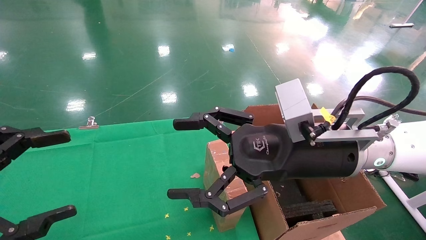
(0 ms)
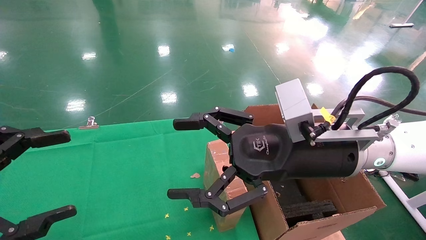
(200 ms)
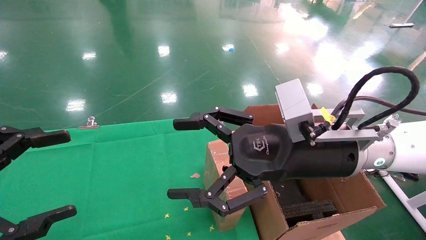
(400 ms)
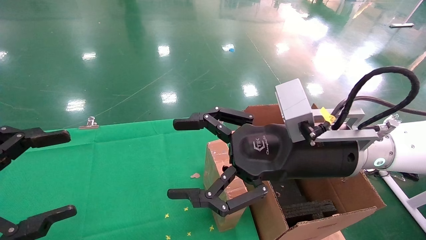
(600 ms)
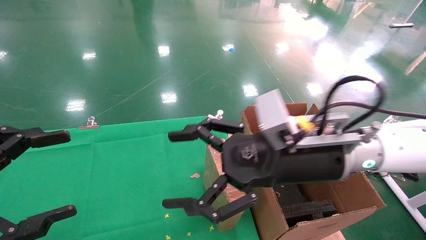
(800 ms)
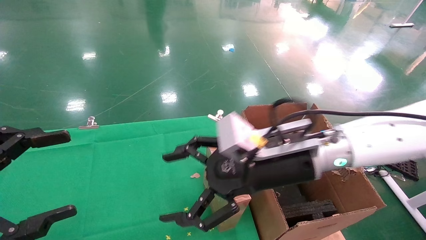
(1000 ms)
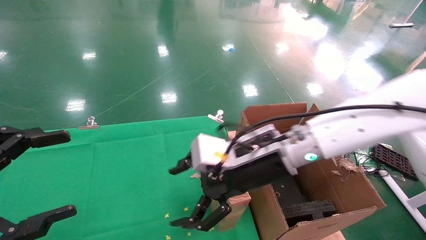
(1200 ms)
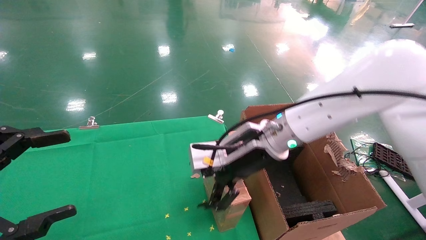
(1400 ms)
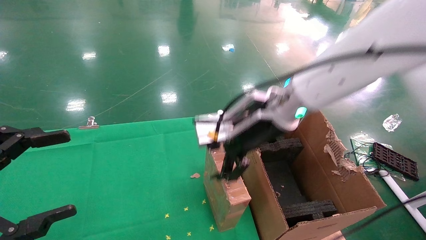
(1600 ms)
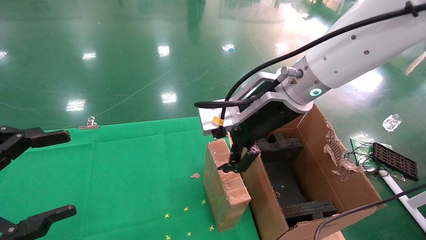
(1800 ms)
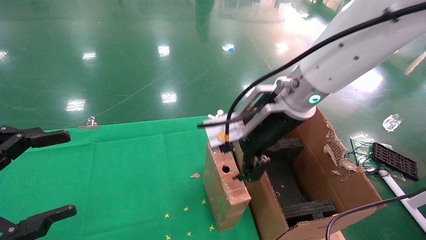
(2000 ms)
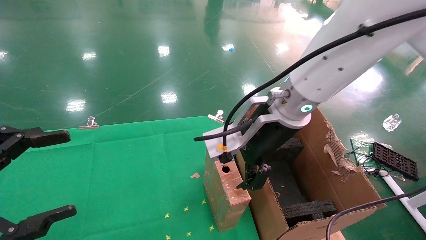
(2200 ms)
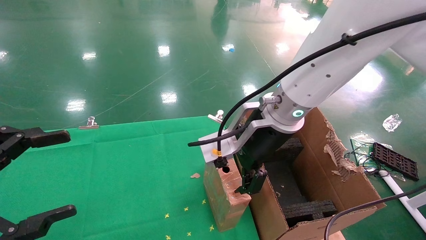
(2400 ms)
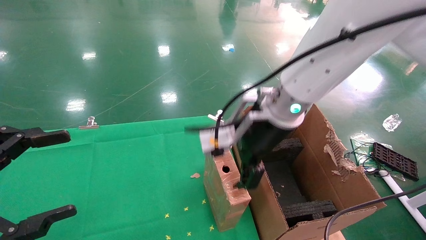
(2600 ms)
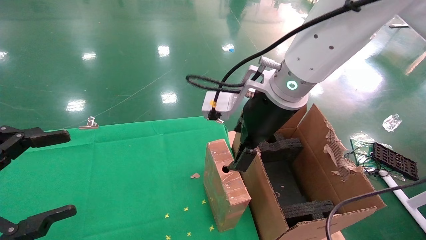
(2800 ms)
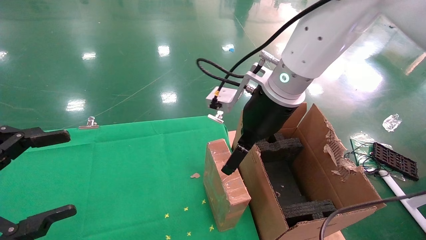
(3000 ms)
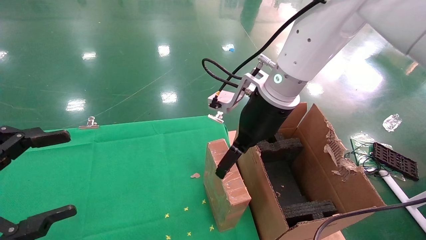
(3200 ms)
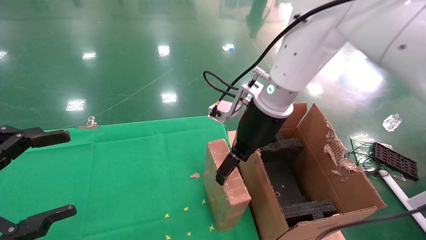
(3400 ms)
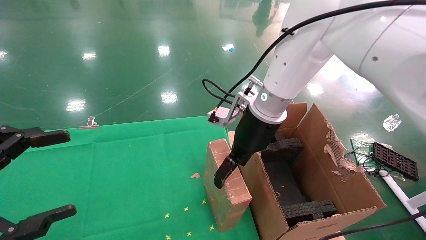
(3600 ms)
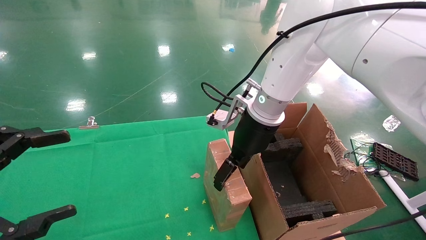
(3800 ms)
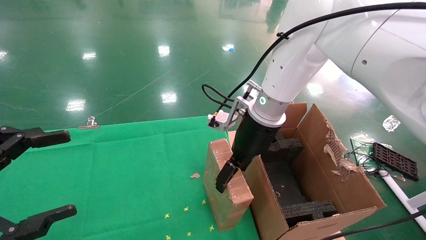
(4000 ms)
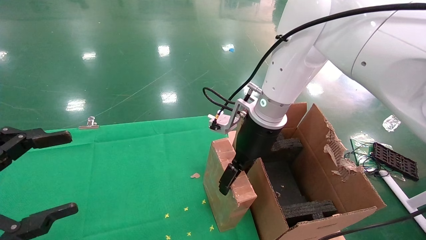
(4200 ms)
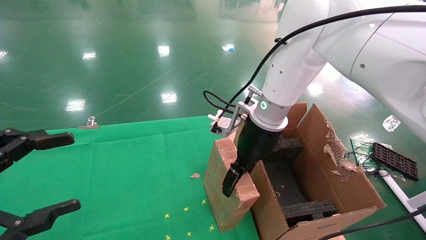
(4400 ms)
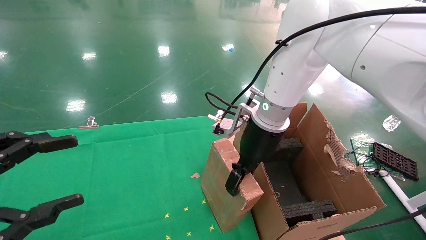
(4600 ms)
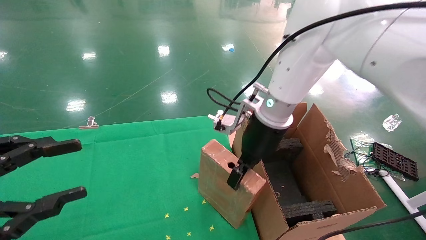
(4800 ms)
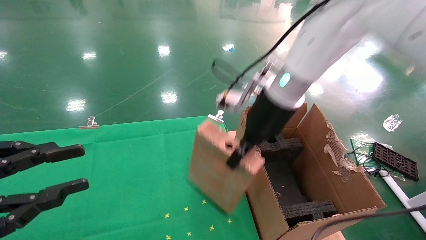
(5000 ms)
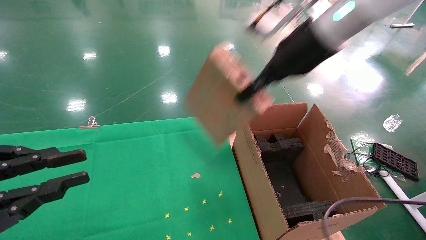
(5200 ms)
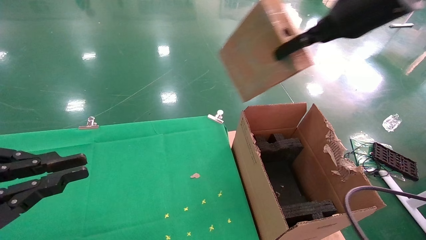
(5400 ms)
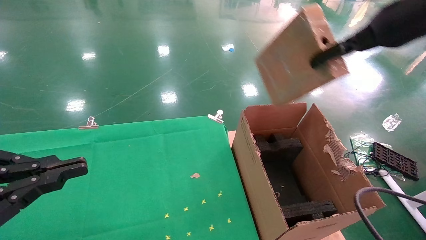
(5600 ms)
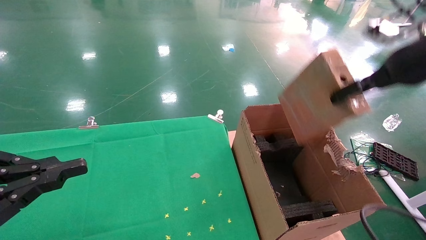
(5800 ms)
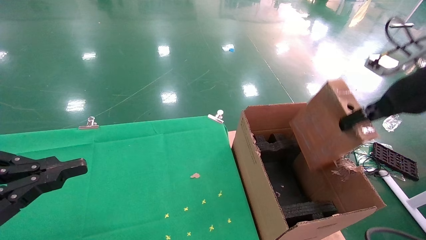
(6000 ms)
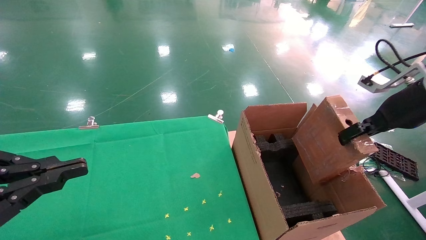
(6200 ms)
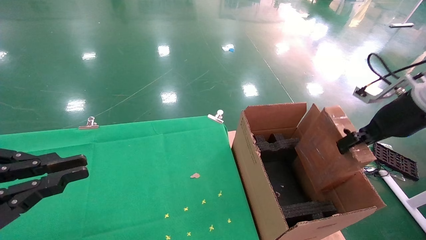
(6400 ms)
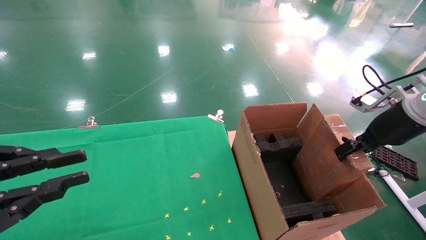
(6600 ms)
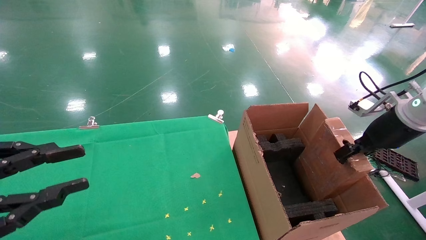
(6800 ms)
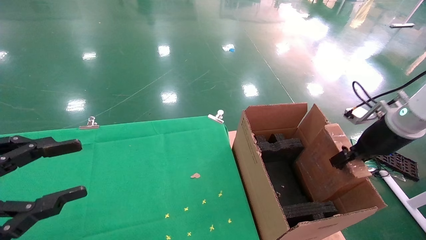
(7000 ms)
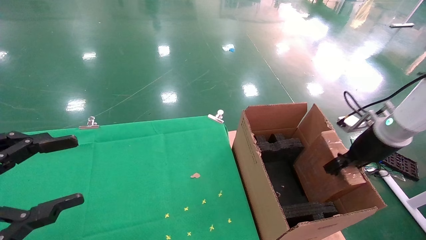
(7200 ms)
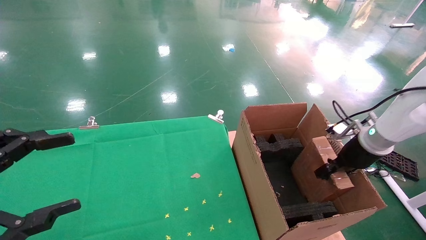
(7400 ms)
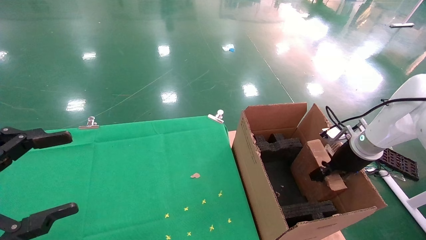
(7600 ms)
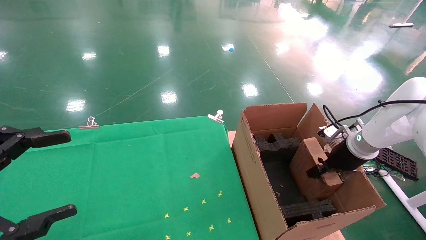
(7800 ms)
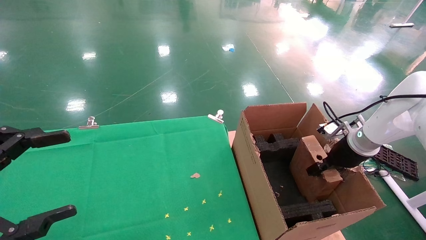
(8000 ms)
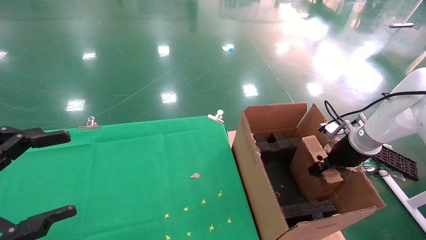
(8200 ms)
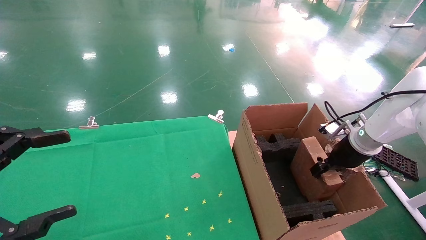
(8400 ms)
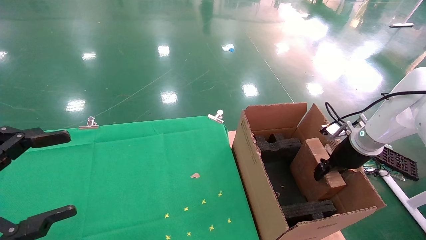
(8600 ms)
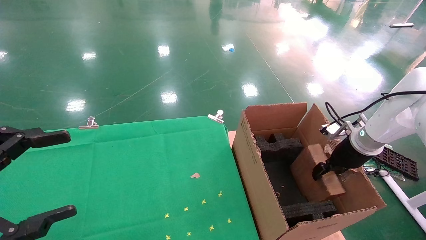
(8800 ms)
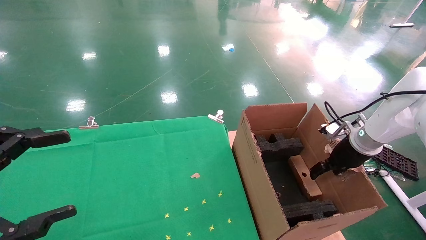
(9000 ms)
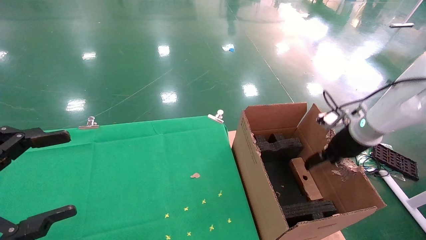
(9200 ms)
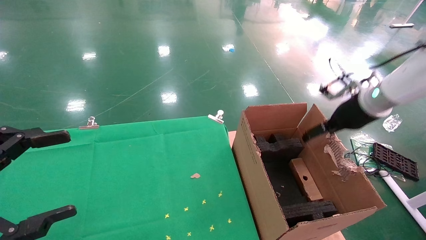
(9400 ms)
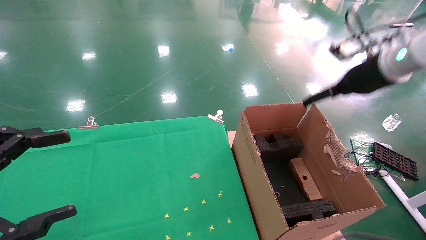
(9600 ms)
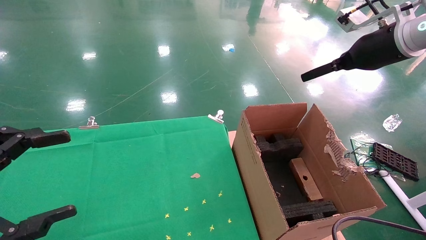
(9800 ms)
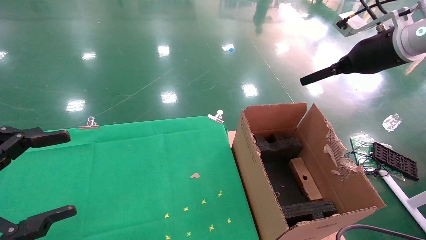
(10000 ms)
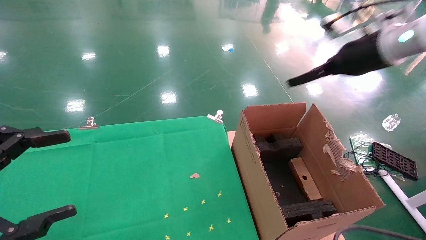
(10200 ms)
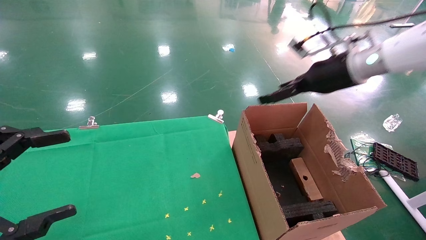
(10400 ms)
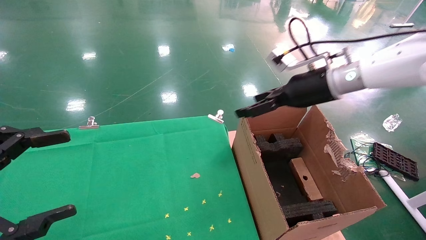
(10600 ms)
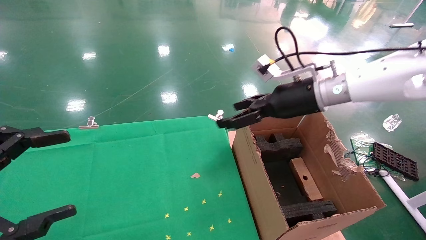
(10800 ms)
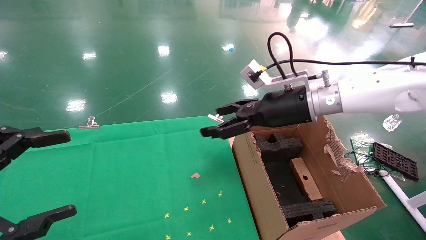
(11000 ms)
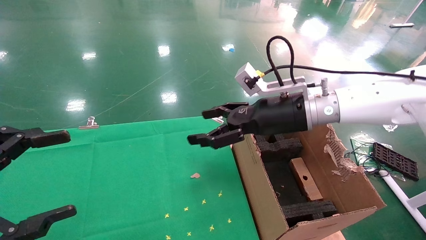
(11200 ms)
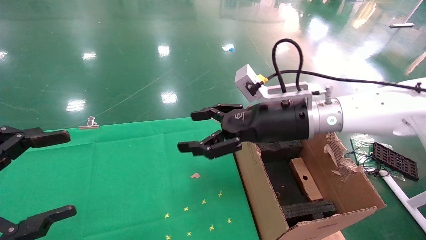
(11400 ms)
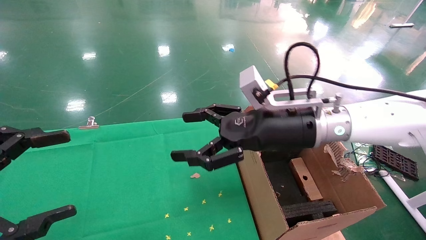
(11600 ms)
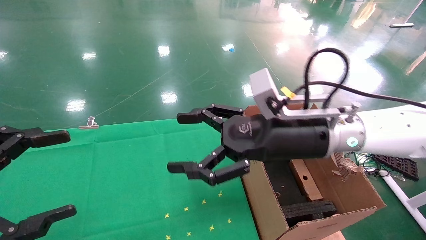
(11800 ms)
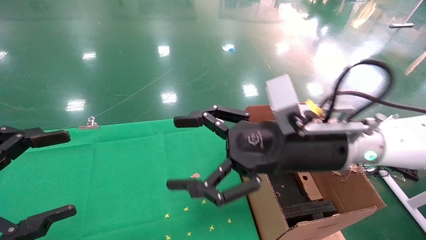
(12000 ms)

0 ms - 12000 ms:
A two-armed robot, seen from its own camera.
Task of the whole recording: using a robotic arm to pick up a cardboard box and palace it the carton.
Step, 1000 ms - 4800 ms: Pick up the mouse and the power cord paper box.
Step, 5000 ms - 9200 ms: Place the mouse and the power cord paper box into the container.
0 ms - 1600 ms: The right gripper shifts some 10 cm forward and to the left.
3000 ms - 4400 ms: The right gripper is displaced downward by about 5 cm.
4400 ms - 6000 ms: The right gripper shifts some 25 cm to the right, and closes. The left gripper closes its fingers.
6000 ms - 7600 ms: The left gripper opens its fingers. Meanwhile the right gripper shifts about 20 cm downward and forward.
7600 ms - 9000 ms: The right gripper opens up.
9000 ms - 10400 ms: The right gripper moves upward and to the left, roughly 20 cm, and opens up.
10400 ms - 12000 ms: The right gripper heads to the left, backward and downward, covering approximately 20 cm.

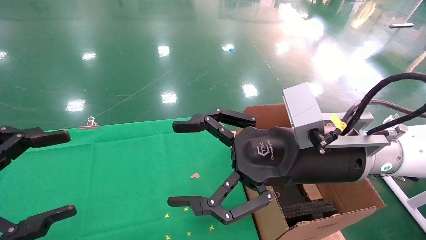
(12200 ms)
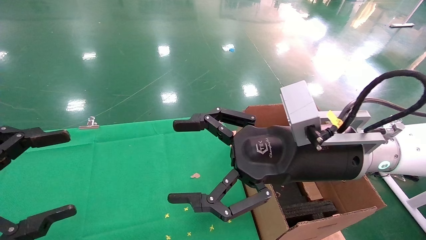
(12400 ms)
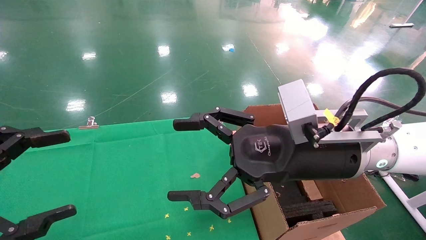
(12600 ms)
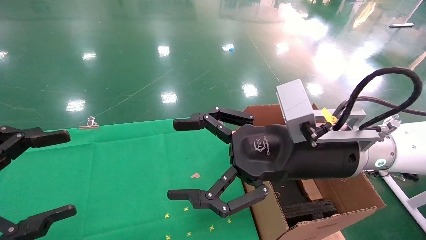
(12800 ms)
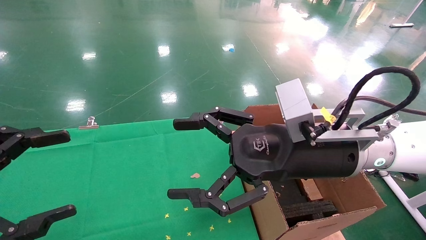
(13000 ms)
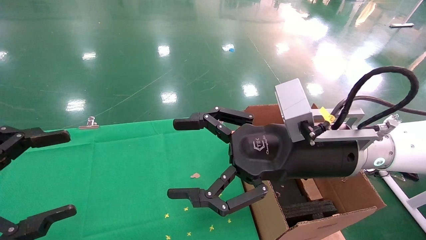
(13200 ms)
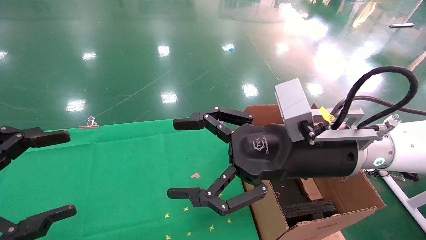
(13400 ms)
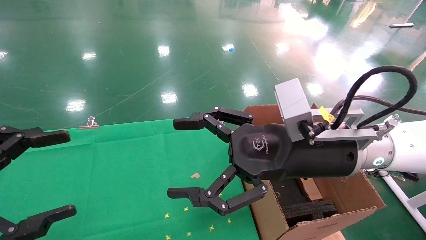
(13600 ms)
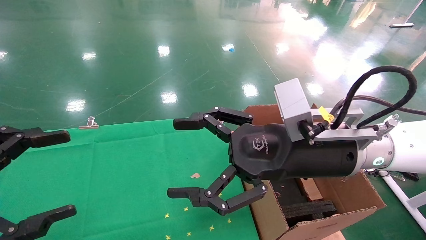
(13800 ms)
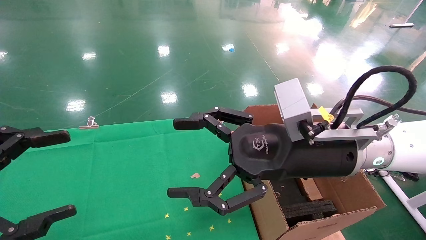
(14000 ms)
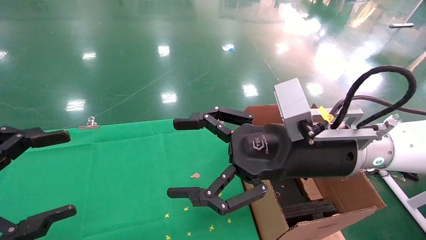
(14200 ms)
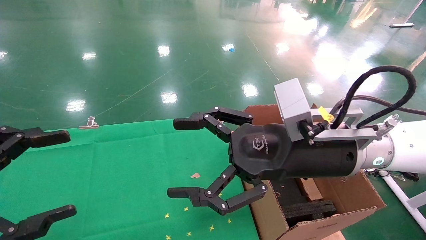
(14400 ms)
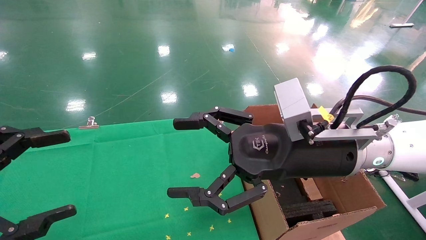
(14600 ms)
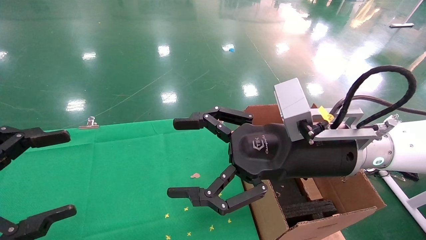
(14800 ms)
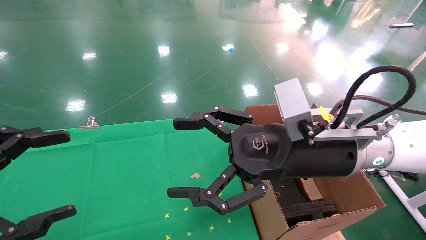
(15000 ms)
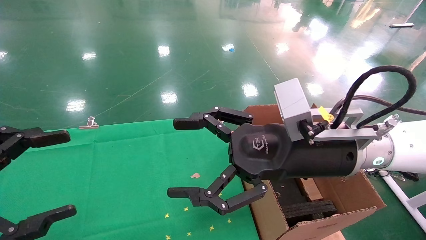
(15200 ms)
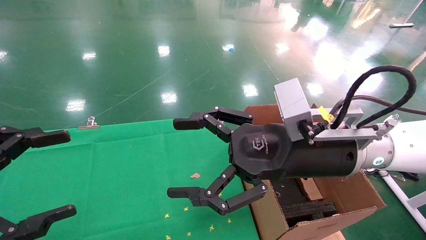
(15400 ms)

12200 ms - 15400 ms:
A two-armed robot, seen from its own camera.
Task of the whole recording: using a robotic arm to pick up a cardboard box and palace it the carton.
12200 ms - 15400 ms: Neither gripper changes place.
